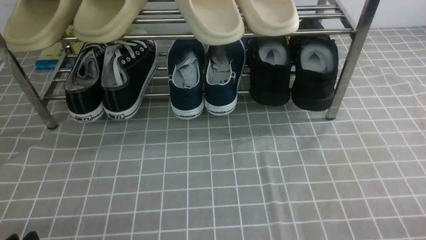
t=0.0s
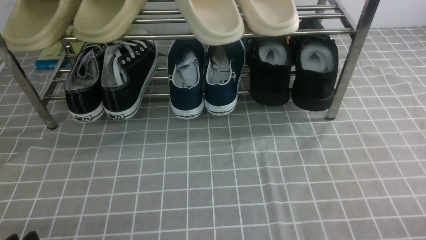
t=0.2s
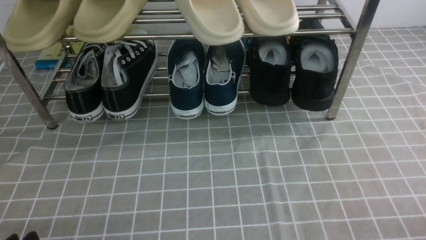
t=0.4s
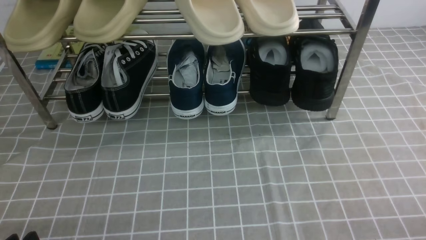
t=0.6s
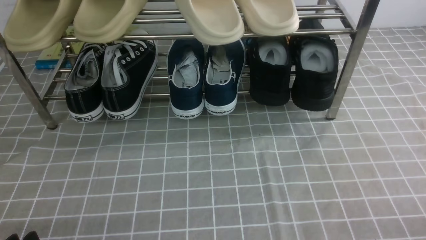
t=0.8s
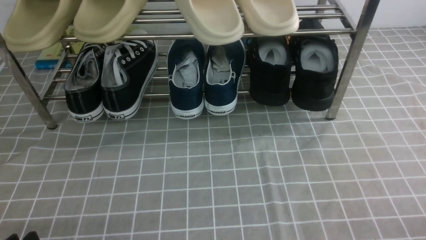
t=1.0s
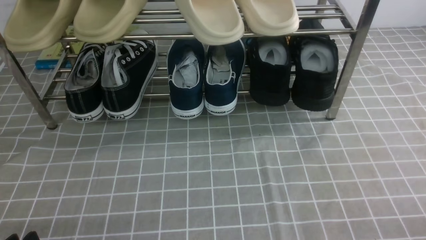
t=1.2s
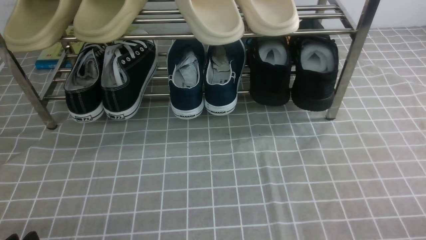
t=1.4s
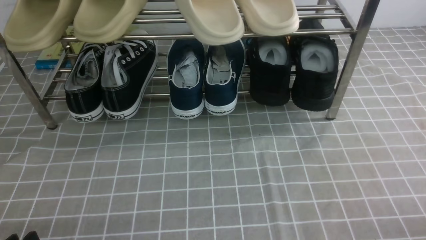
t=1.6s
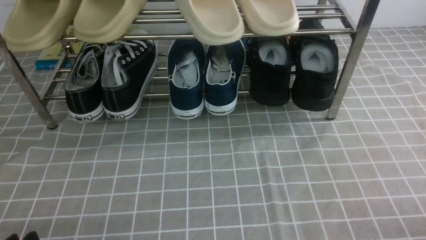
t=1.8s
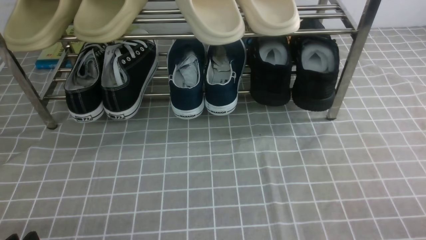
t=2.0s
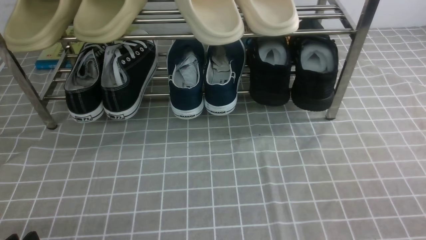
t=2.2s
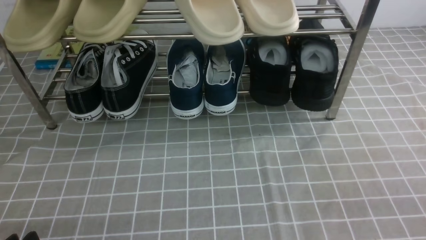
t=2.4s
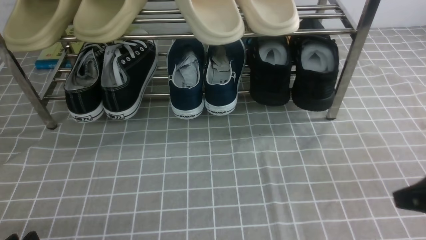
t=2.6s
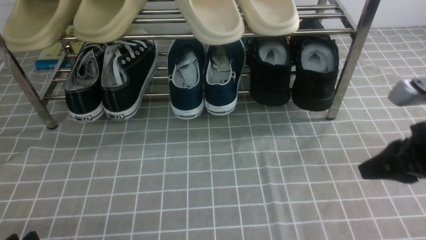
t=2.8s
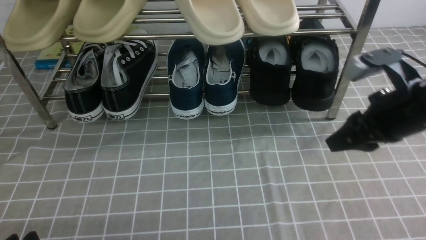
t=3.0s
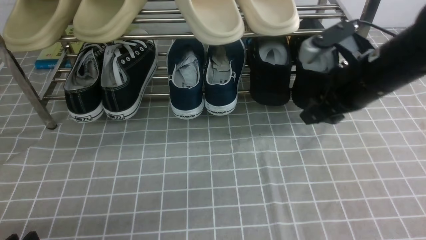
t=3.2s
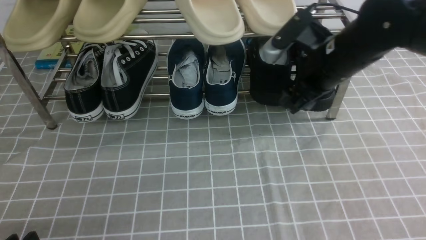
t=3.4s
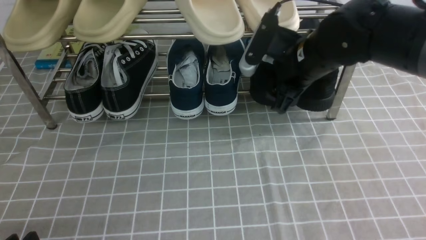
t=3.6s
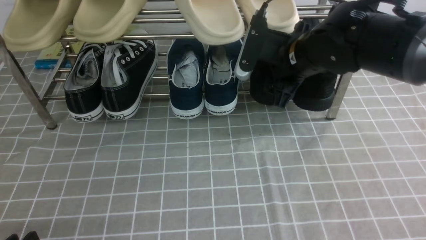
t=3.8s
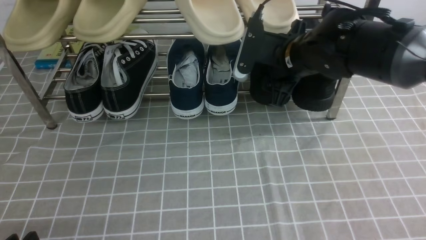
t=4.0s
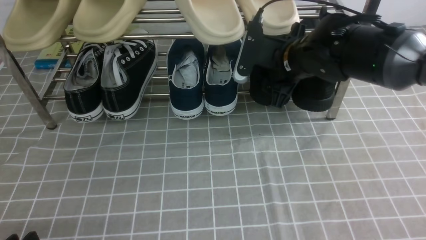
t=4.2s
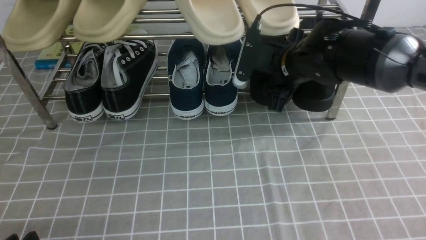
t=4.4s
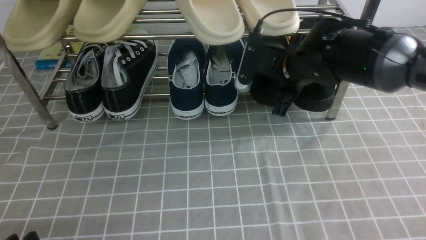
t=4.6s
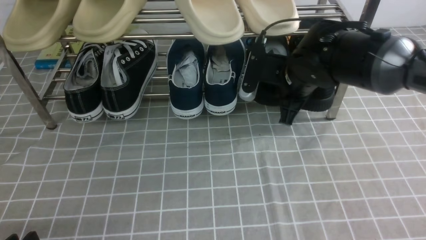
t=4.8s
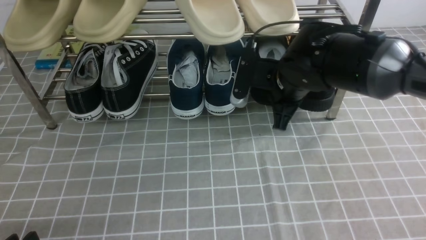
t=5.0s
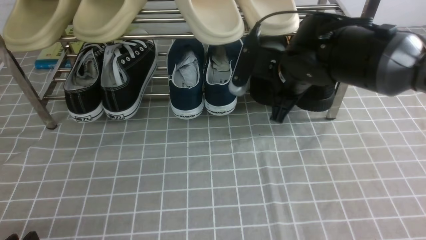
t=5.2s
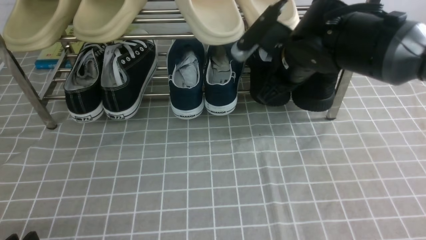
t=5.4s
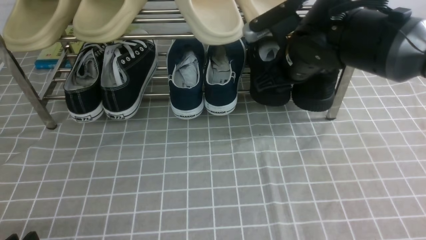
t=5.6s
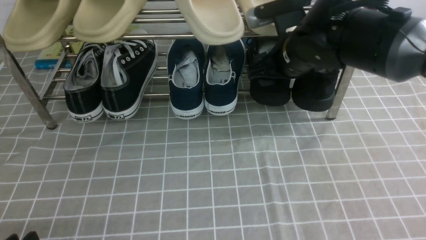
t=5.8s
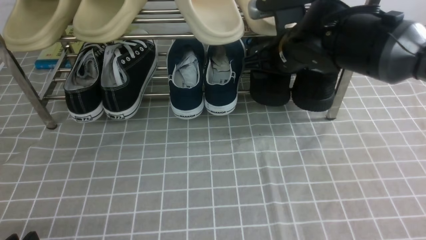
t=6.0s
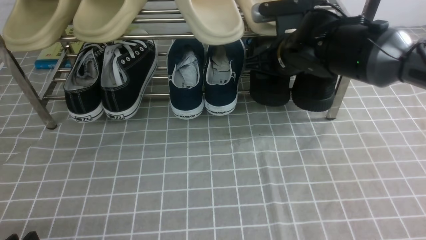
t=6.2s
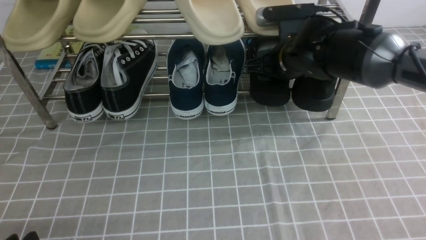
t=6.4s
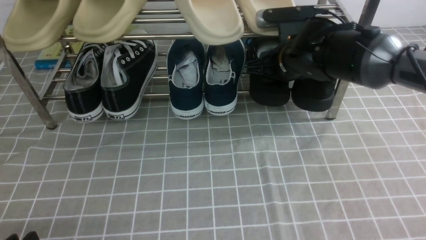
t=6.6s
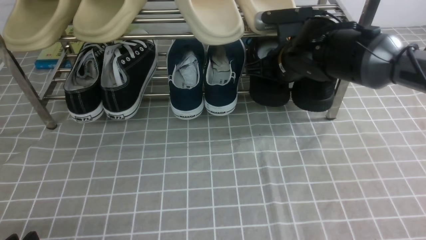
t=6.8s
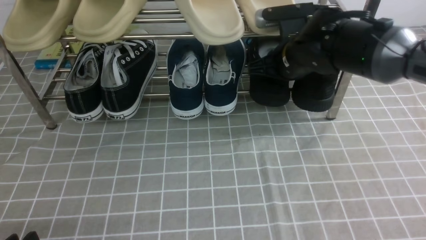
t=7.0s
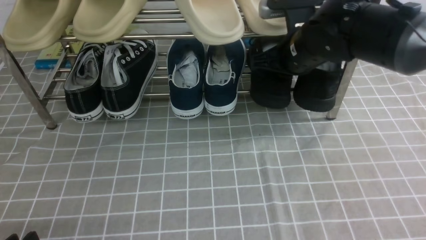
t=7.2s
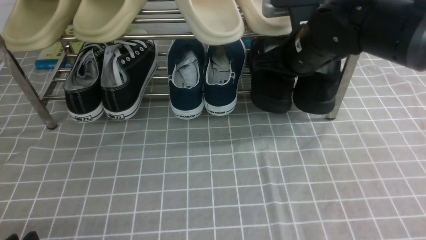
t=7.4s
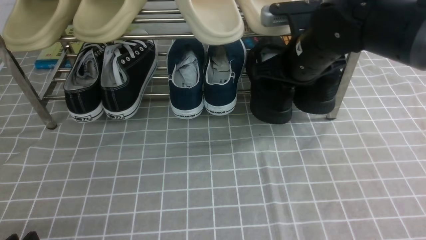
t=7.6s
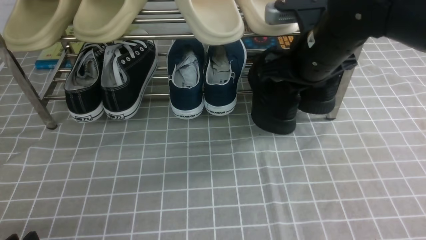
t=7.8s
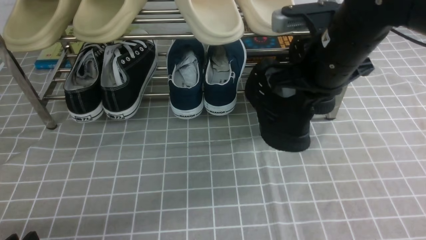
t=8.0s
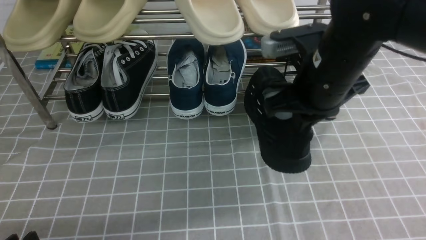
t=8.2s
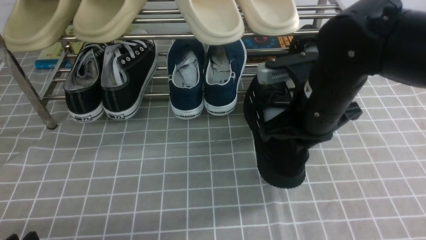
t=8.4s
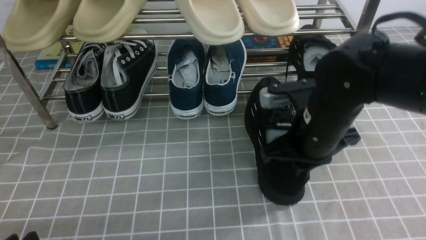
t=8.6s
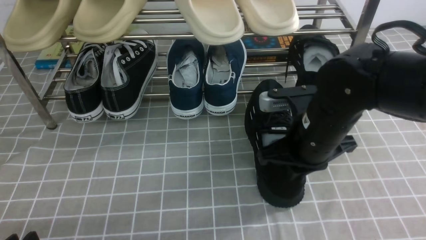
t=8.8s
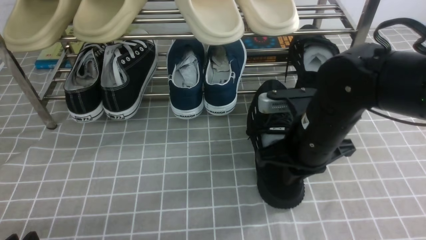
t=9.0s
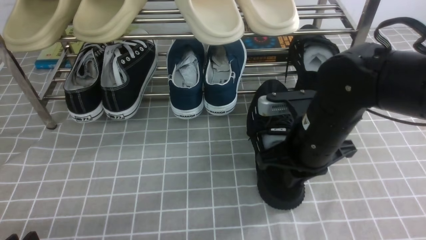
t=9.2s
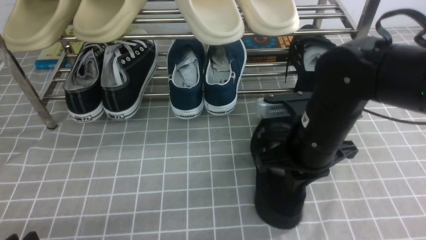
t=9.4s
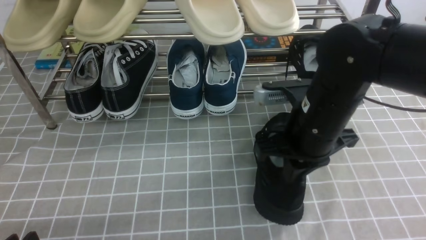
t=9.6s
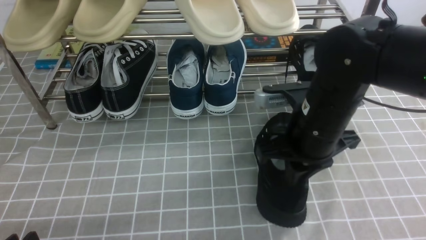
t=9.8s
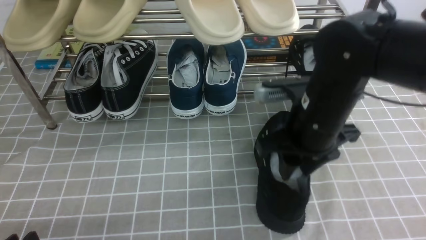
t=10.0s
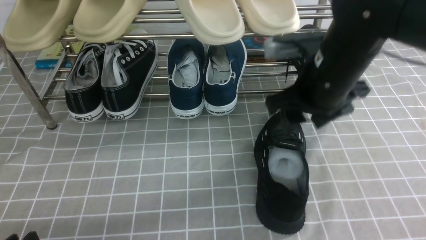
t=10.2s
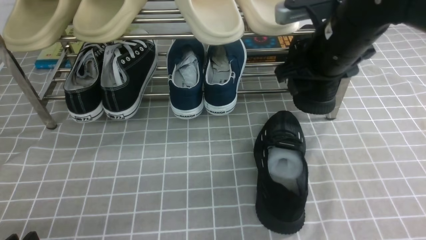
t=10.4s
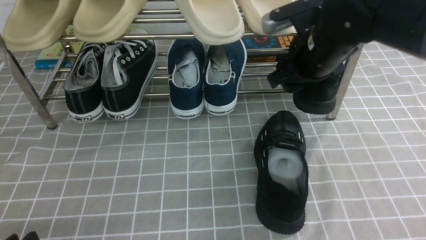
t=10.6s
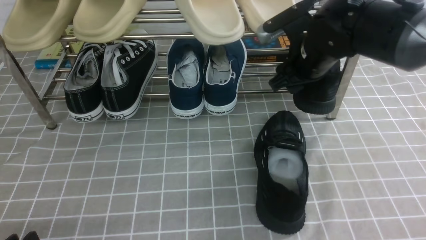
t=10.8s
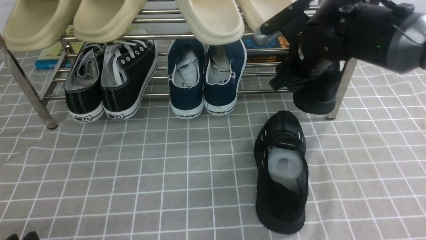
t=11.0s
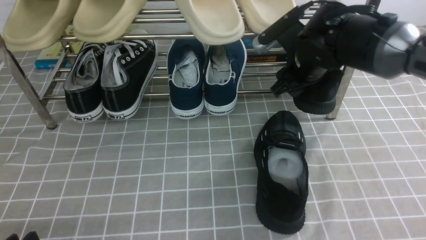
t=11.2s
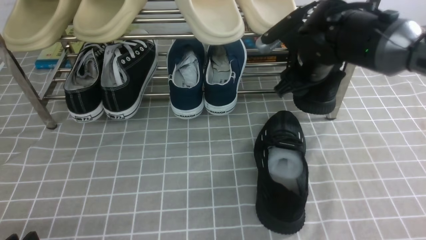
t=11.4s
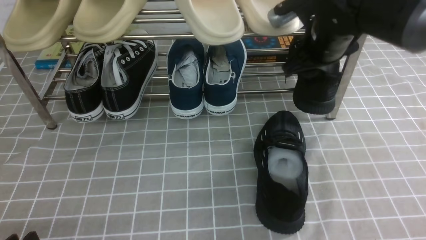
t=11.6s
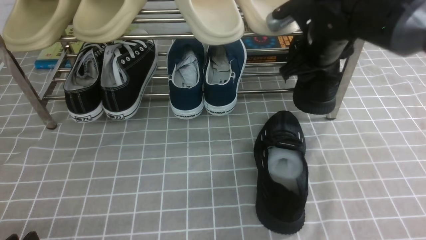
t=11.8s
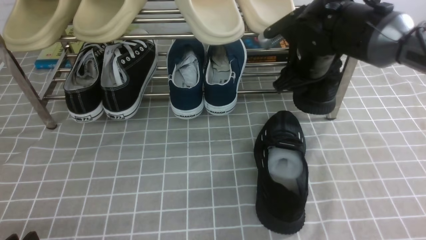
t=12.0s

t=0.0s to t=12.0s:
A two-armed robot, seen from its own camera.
Step, t=0.0s to t=7.0s: use the right arm to clamp a shoe on the right side of the shoe rack.
Step, t=7.2s to t=10.0s: use the right arm to take out the clamped shoe from the shoe rack and put it down.
t=1.6s to t=3.0s: The right gripper heads forward and upward, covering about 25 cm, and closes, then reopens.
t=3.0s to t=4.4s: The right gripper shifts approximately 15 cm forward and to the left.
t=4.4s to t=6.0s: The right gripper closes and opens again.
t=6.0s to t=7.6s: The right gripper closes.
t=7.6s to t=9.0s: The right gripper moves backward and downward, approximately 10 cm.
t=9.0s to t=10.4s: The right gripper goes some 10 cm upward and forward, and opens up.
t=10.4s to t=12.0s: The right gripper moves forward, approximately 5 cm.

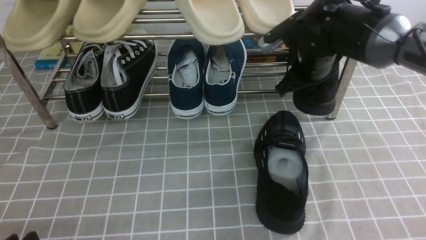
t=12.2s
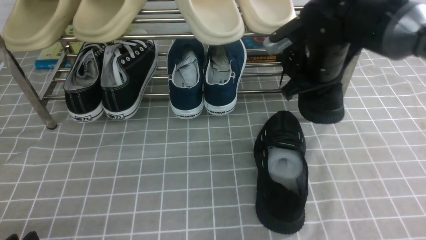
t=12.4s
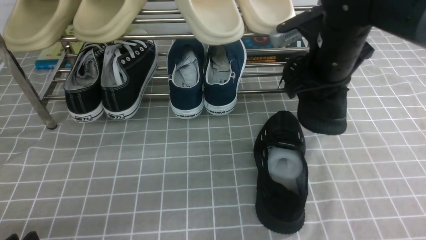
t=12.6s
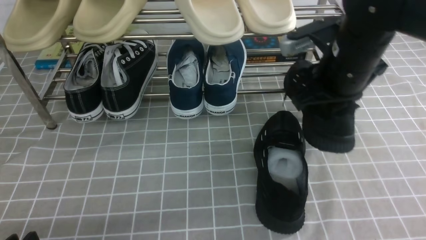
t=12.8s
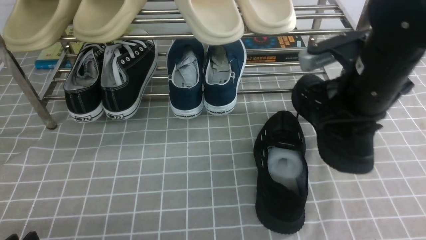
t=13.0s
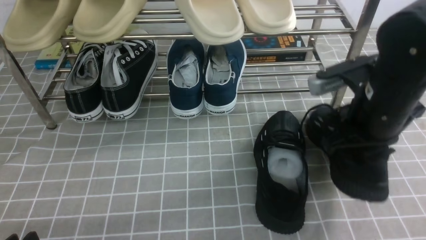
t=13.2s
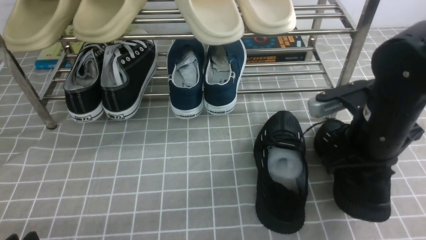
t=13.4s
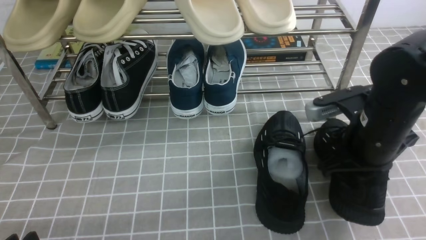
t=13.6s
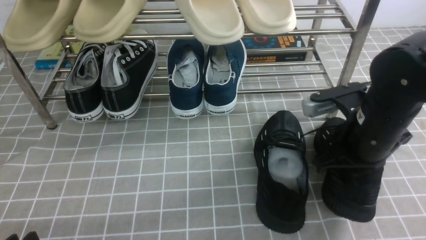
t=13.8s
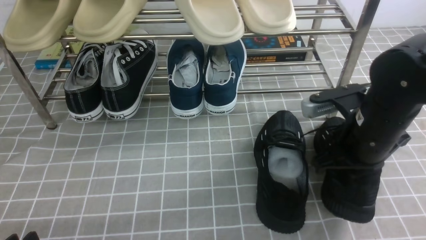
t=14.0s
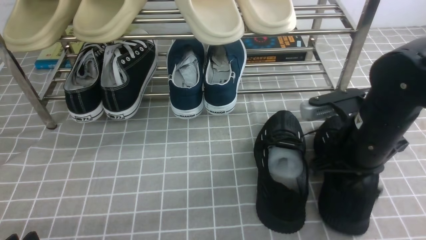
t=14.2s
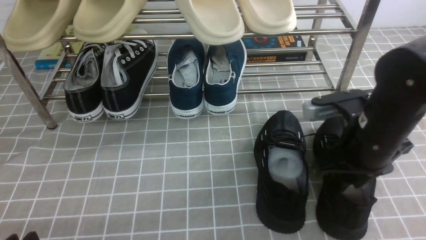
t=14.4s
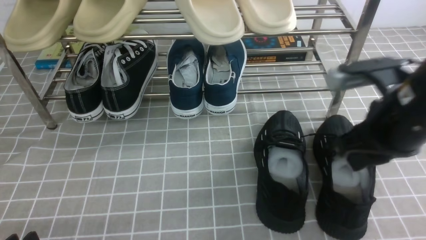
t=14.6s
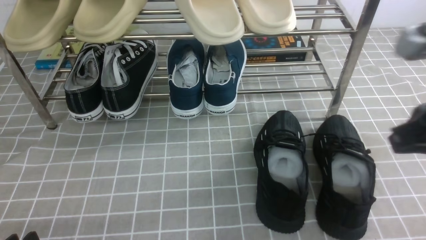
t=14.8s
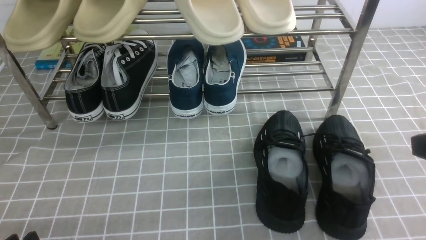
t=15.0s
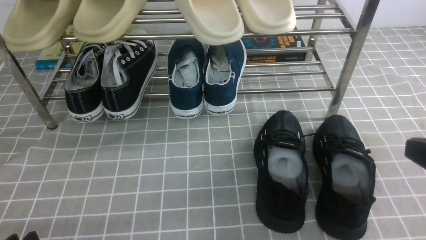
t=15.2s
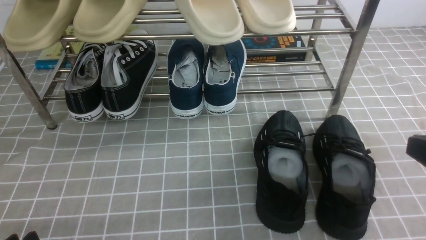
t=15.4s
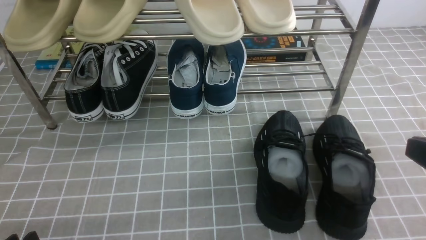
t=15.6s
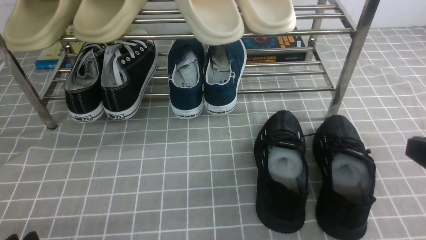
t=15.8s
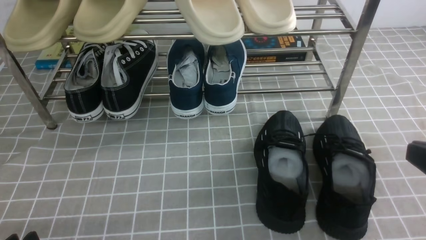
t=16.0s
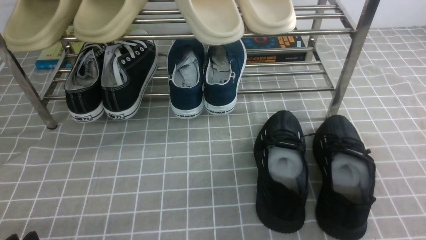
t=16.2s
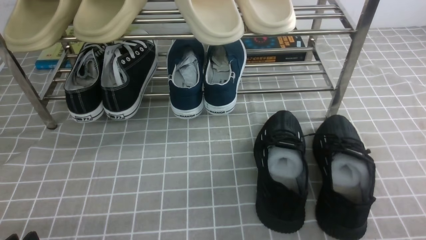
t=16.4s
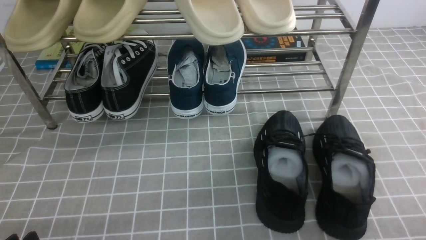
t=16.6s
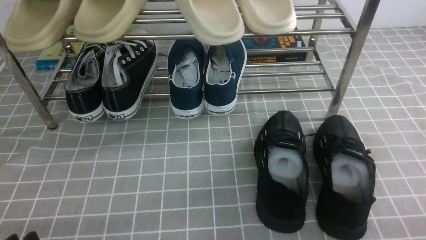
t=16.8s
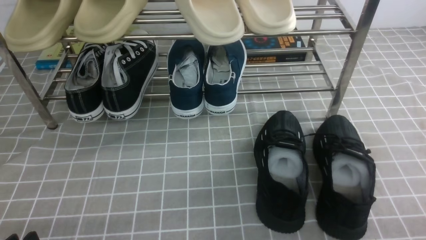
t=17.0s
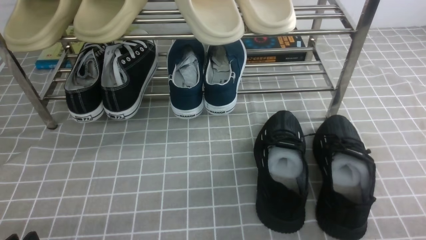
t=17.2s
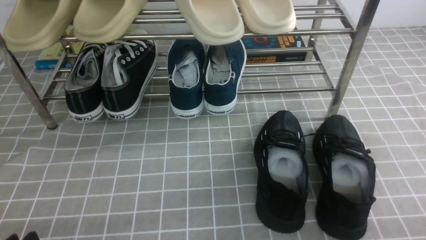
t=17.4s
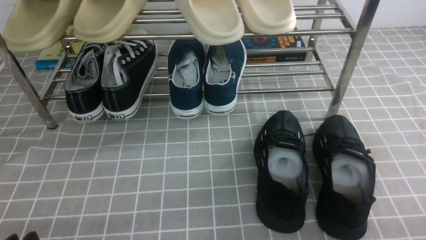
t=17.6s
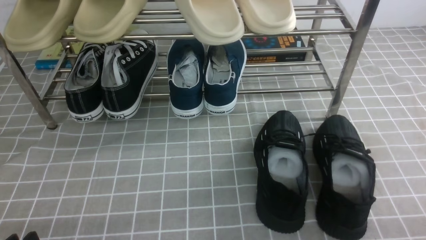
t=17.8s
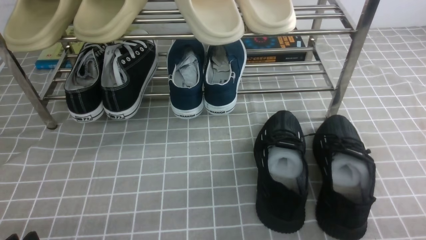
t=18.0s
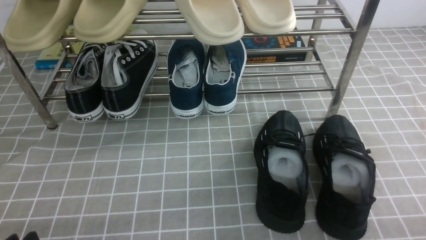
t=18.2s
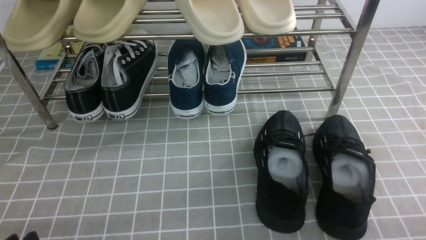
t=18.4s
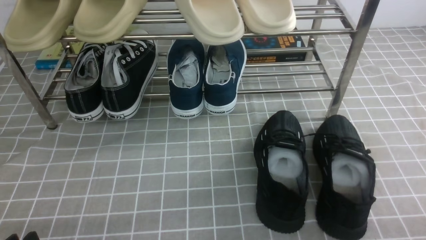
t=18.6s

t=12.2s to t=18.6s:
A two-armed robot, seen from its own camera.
Step, t=12.4s to t=14.4s: use the right arm to take out the clamped shoe from the shoe rack and put it down.
t=12.2s to t=13.8s: The right gripper goes about 15 cm backward.
t=13.8s to t=15.4s: The right gripper shifts roughly 20 cm backward, to the right and upward, and opens and closes again.
t=15.4s to t=17.0s: The right gripper shifts approximately 15 cm downward.
t=17.0s to t=18.6s: Both grippers stay put.
